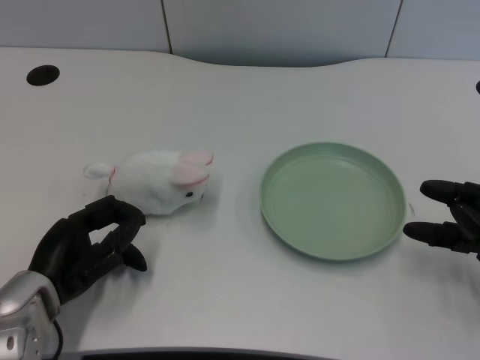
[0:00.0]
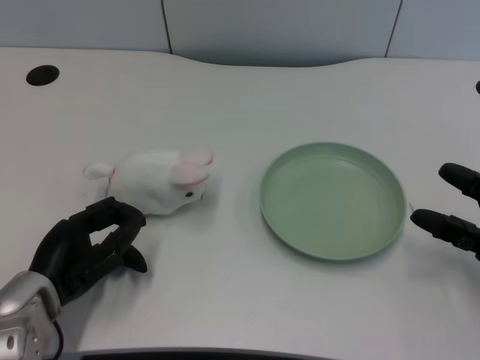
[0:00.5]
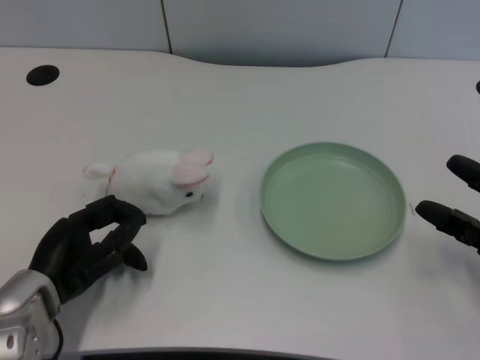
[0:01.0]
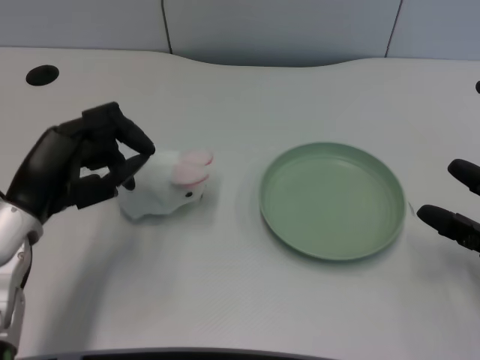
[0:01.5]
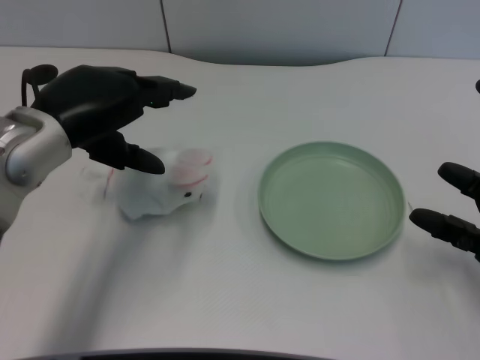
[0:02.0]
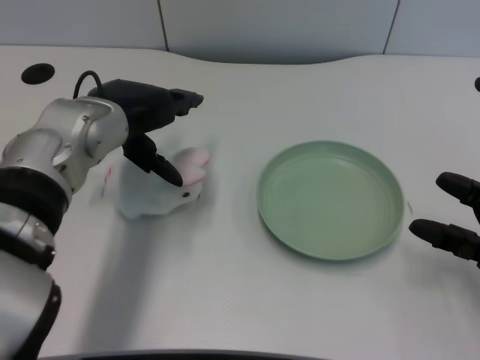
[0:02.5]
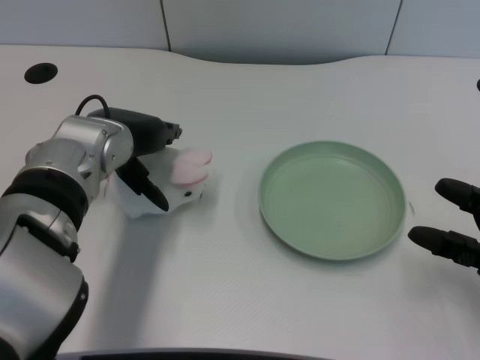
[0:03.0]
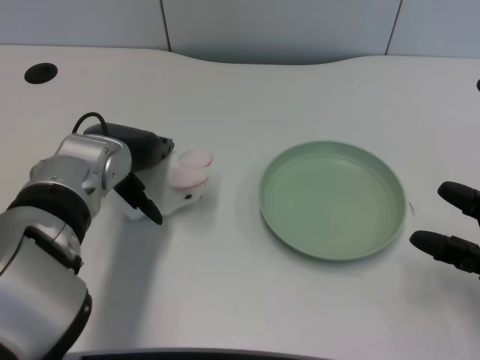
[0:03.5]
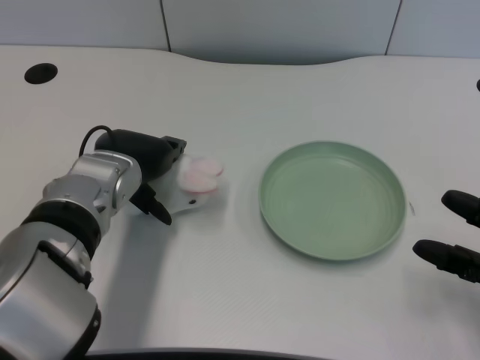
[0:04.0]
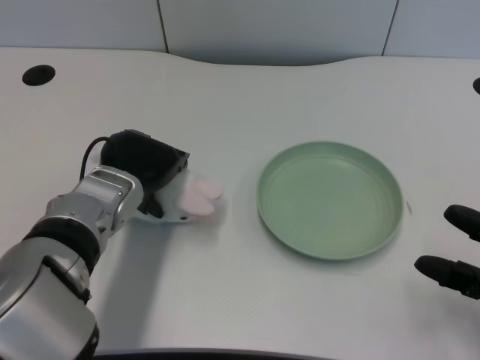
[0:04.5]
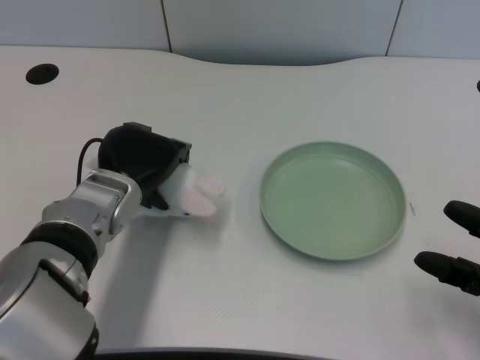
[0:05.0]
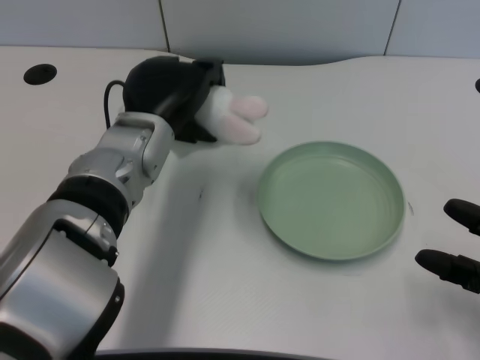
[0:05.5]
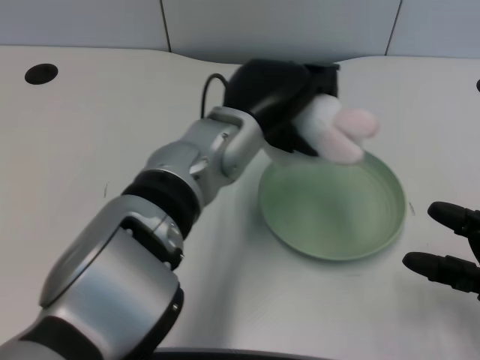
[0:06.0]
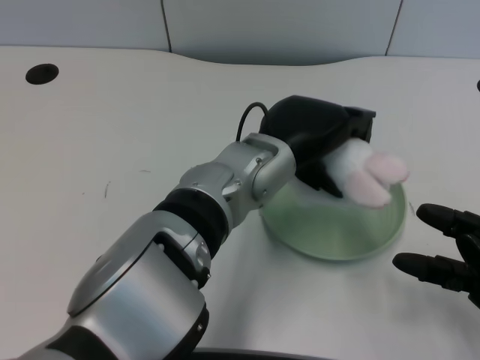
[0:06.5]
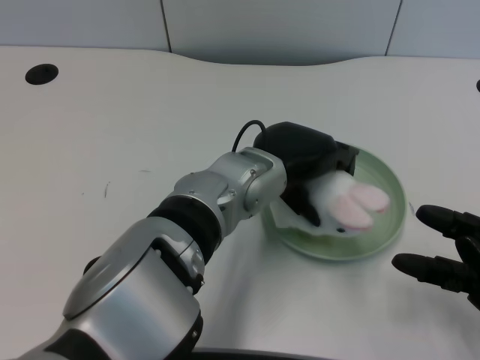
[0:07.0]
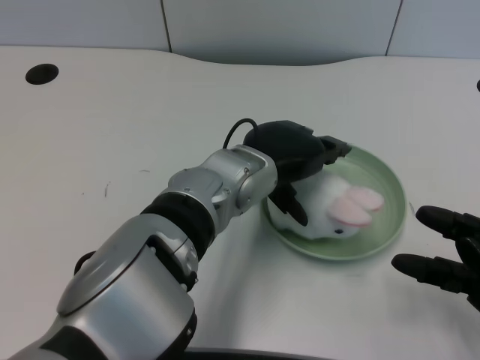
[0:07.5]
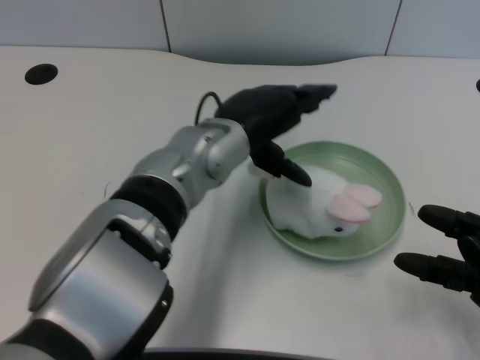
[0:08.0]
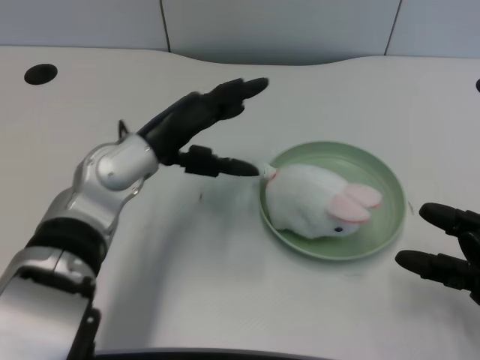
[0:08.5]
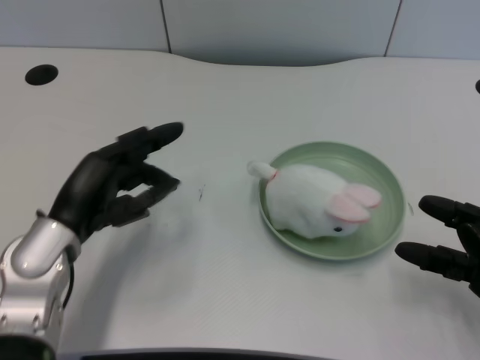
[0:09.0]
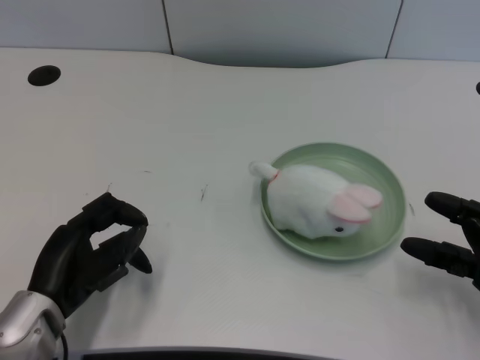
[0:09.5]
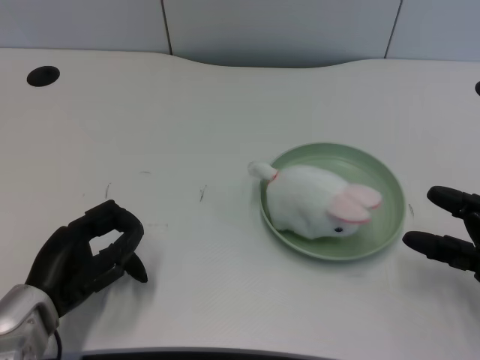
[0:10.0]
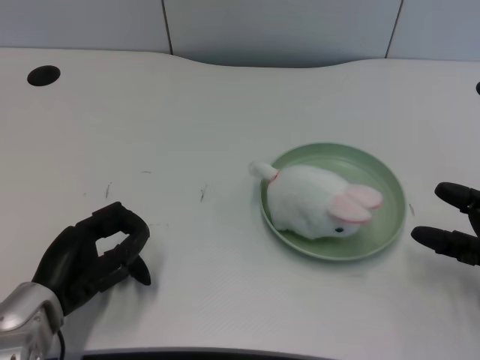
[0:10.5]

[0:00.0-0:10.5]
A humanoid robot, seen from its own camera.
Task of the whole recording: pick up the rabbit doll from the table and place it on the plate.
Step, 0:01.5 to 0:05.0: Grasp the rabbit doll with the left gripper.
Step, 0:05.5 to 0:07.5: Place the rabbit doll into the plate with the left gripper.
0:02.0 to 0:04.0: The left hand travels downward and to the right by some 10 cm.
0:04.0 to 0:06.5: The left hand moves to the right, about 15 cm.
0:06.5 to 0:08.5: The left hand shifts roughly 15 cm to the left.
0:08.5 to 0:10.5: The left hand shifts about 15 cm backward, downward and to the left.

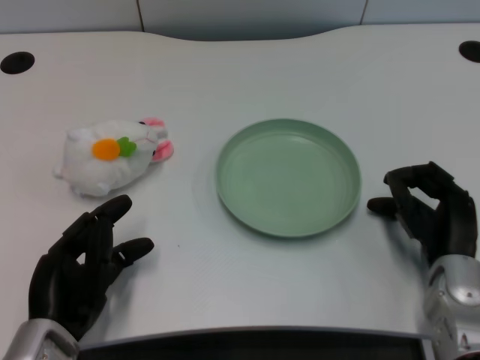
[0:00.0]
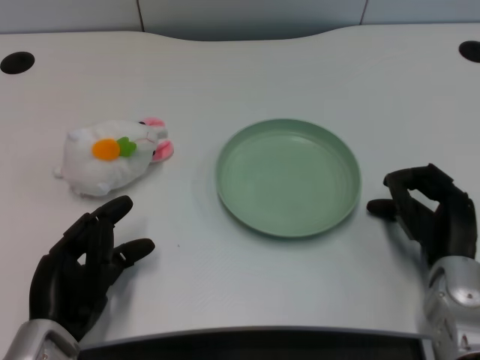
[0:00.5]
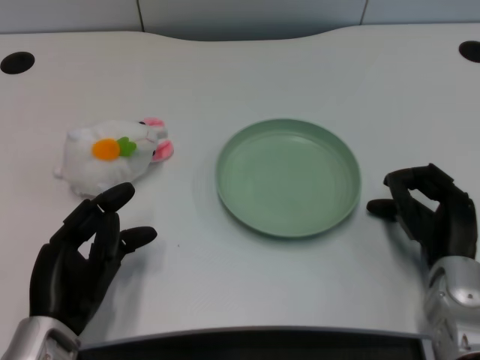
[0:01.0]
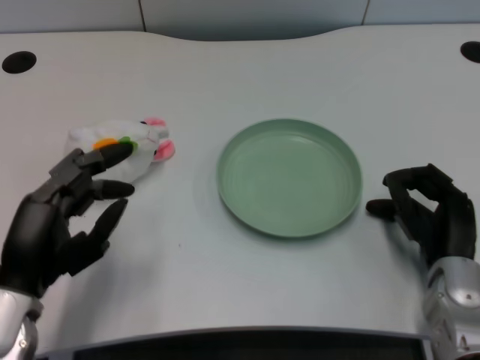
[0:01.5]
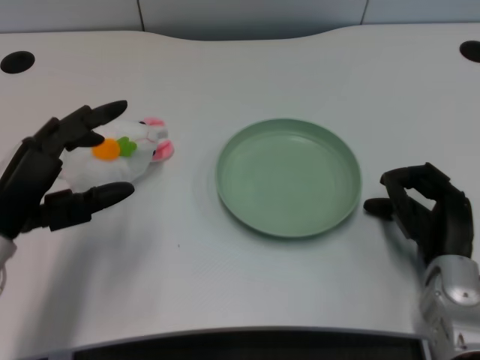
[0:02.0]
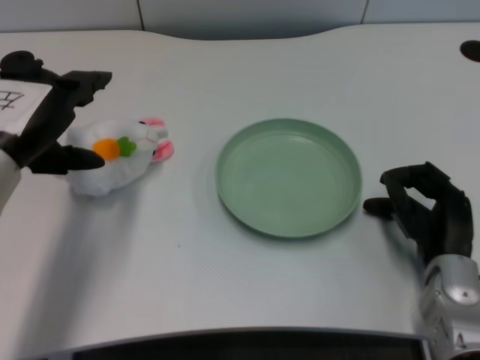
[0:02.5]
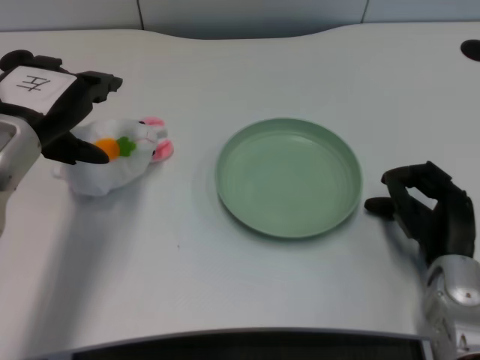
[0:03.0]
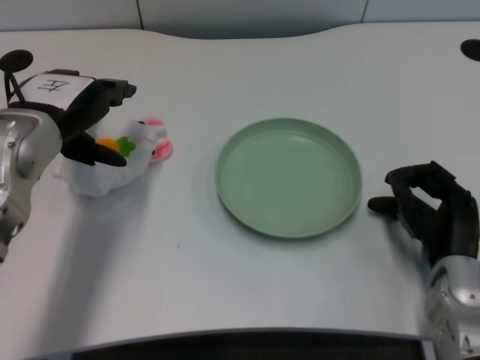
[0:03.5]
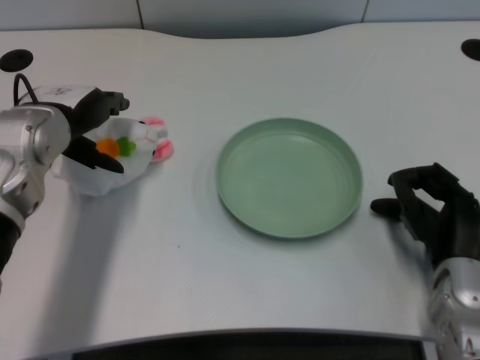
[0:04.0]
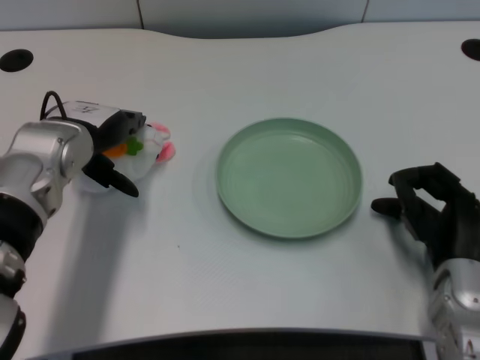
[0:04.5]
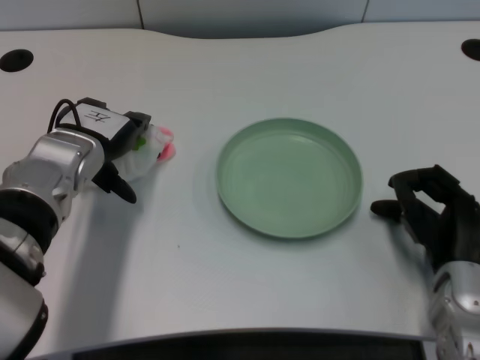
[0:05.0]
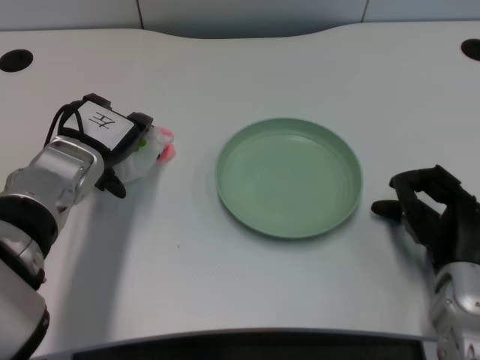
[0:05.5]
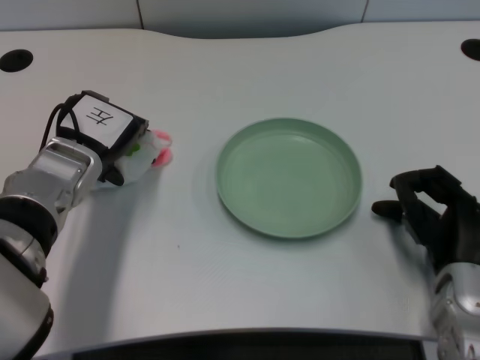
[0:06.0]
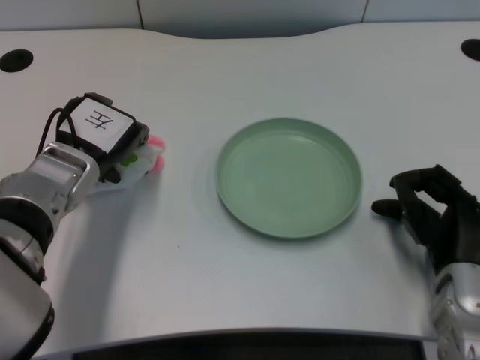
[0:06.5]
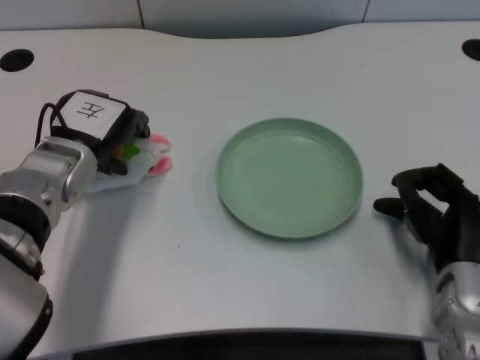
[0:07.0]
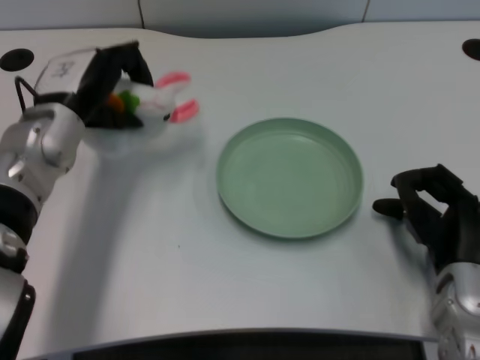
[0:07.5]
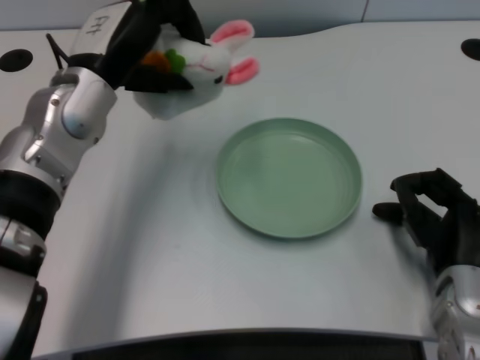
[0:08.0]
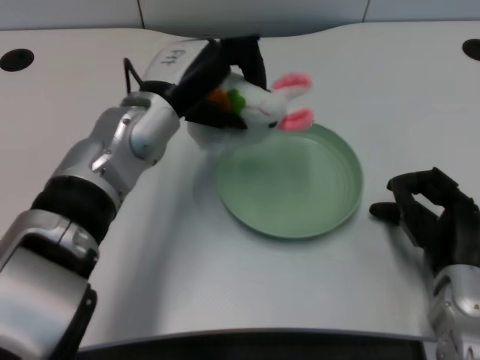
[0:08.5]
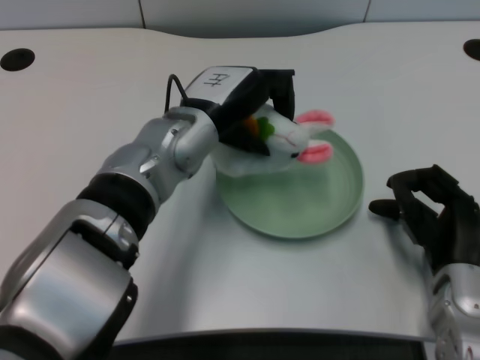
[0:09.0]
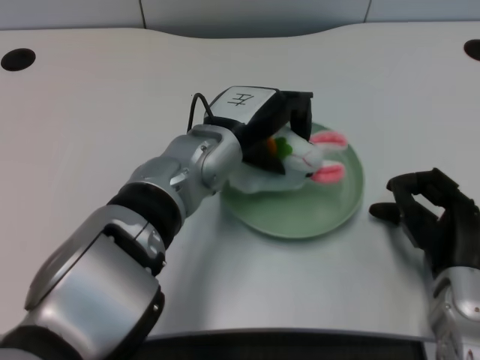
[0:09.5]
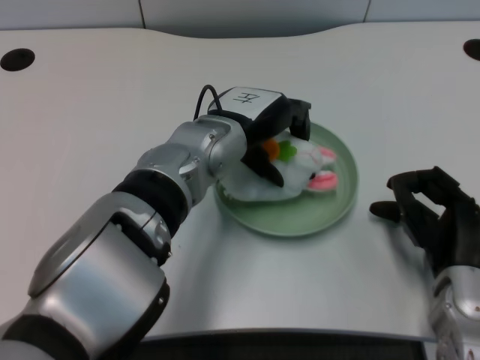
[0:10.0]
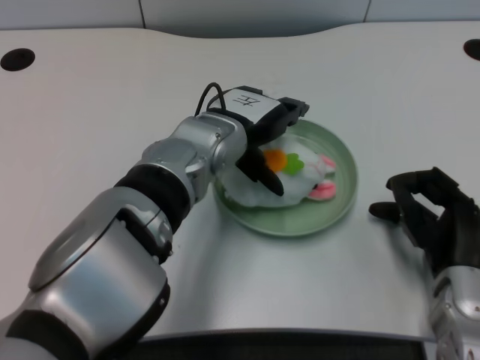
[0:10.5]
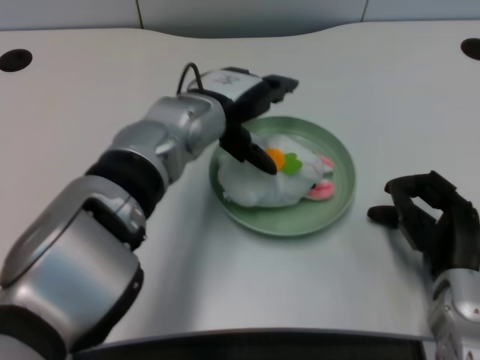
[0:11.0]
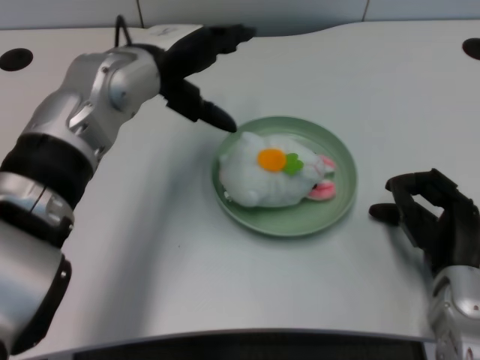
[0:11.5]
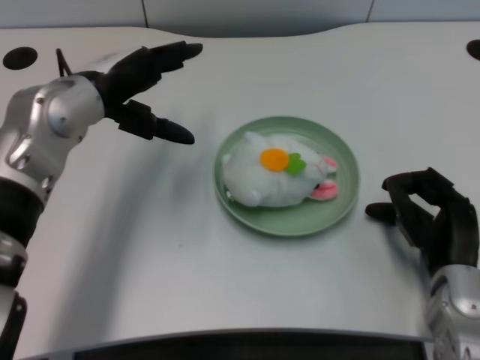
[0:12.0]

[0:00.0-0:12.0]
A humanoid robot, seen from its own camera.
Task of the whole recording: pick up the rabbit doll from the table and place it on the plate.
Step, 0:01.5 to 0:07.0: Grasp the rabbit doll with the left gripper.
Step, 0:07.5 to 0:10.0: Place the rabbit doll into the plate with the left gripper.
0:02.0 to 0:04.0: The left hand moves forward, about 10 cm.
0:04.0 to 0:06.0: The left hand is displaced downward by some 5 cm.
0:06.0 to 0:08.0: The left hand shifts approximately 10 cm upward.
0:08.0 to 0:10.0: The left hand moves to the right, approximately 10 cm.
0:10.0 to 0:12.0: The left hand shifts about 15 cm to the left.

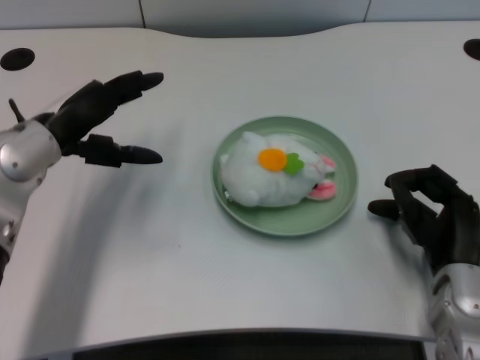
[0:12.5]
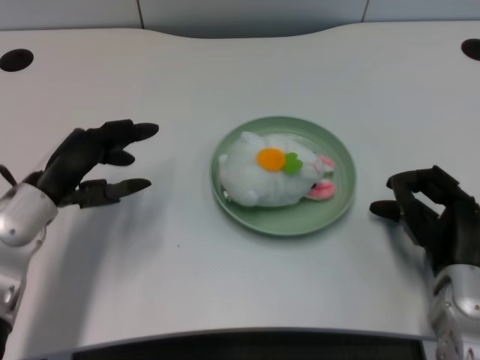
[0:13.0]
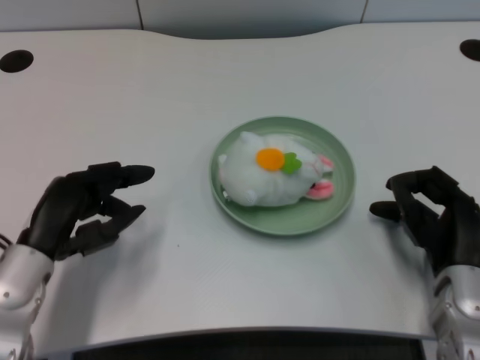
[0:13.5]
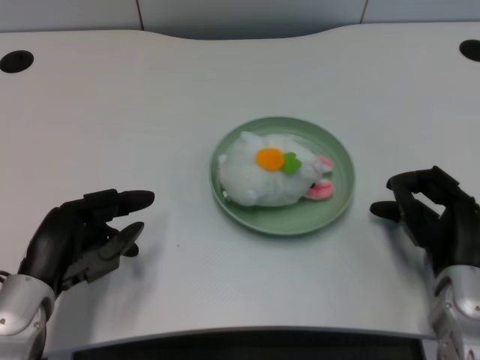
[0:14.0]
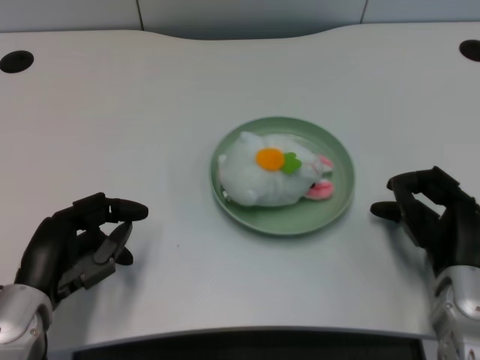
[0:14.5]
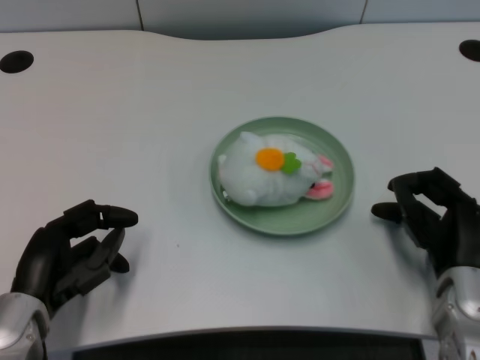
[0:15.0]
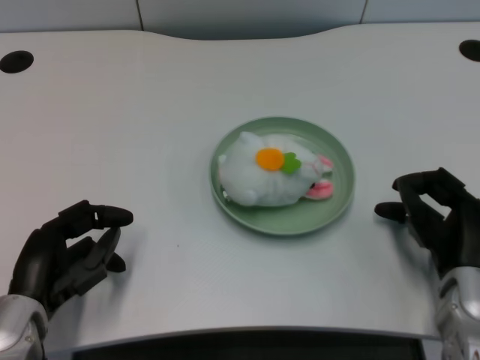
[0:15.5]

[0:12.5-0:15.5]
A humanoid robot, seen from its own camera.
Task of the whole recording: pick up the rabbit doll from the table and place it on the plate.
0:12.5 to 0:14.0: The left hand travels backward and downward by about 15 cm.
0:14.0 to 0:15.5: The hands make only small movements.
